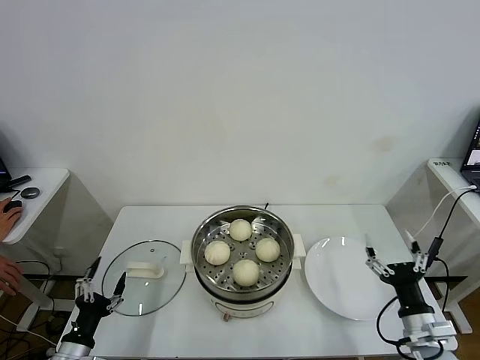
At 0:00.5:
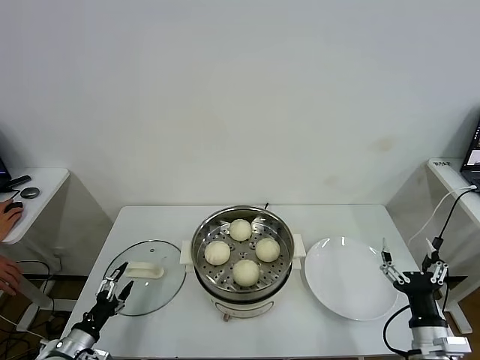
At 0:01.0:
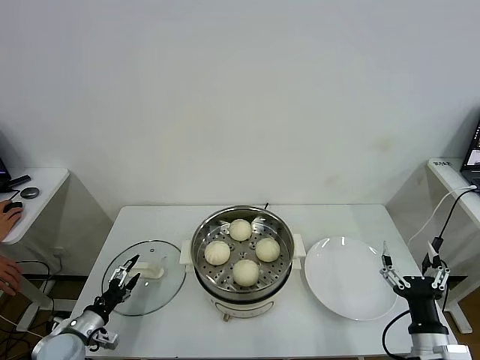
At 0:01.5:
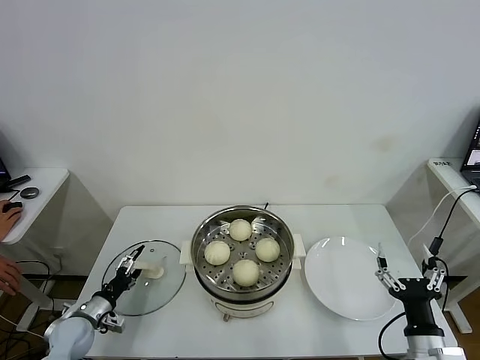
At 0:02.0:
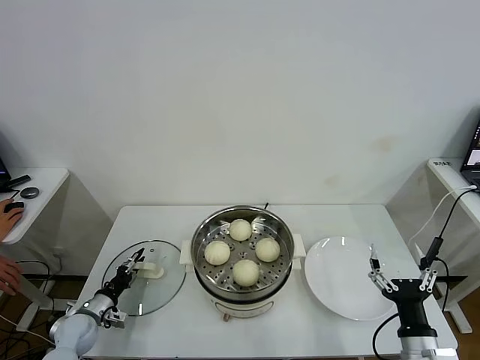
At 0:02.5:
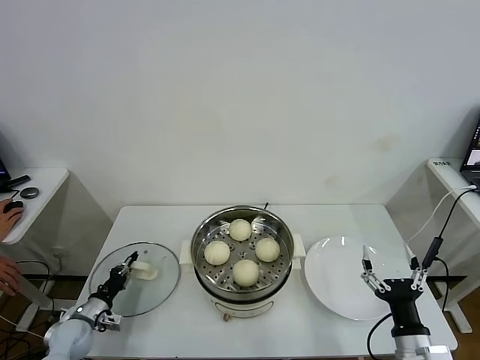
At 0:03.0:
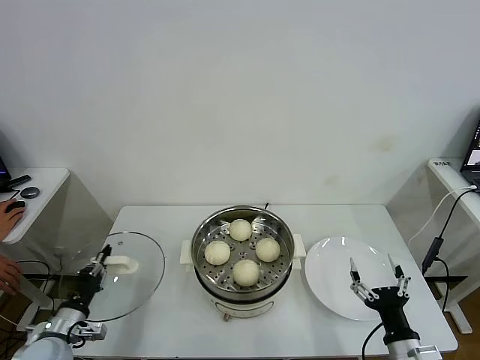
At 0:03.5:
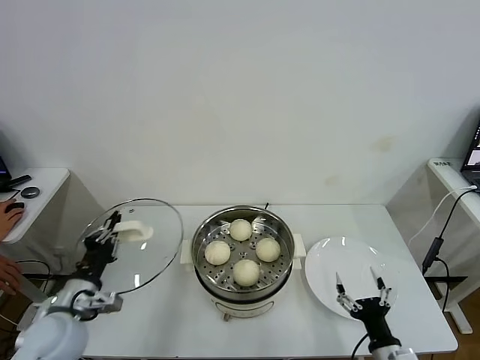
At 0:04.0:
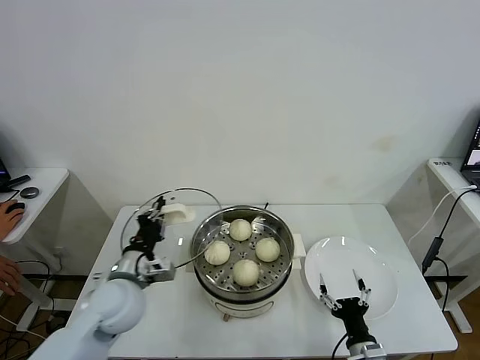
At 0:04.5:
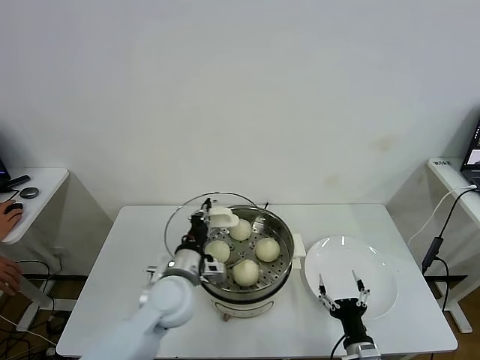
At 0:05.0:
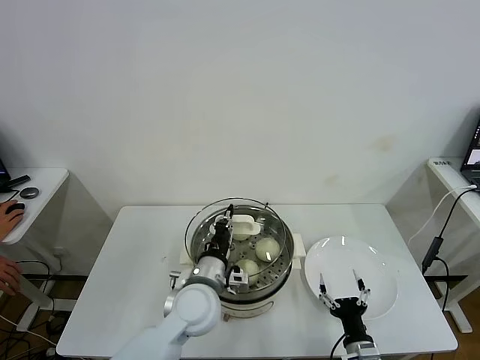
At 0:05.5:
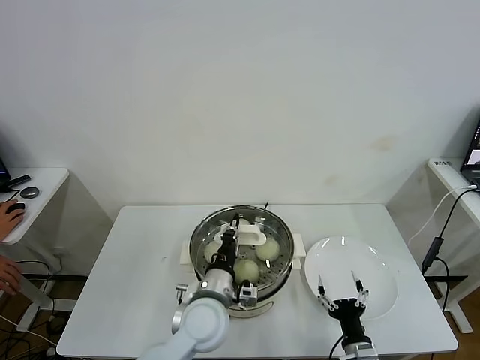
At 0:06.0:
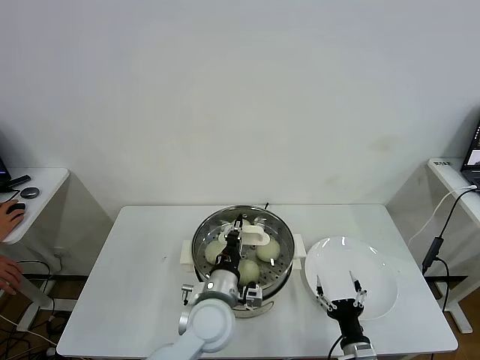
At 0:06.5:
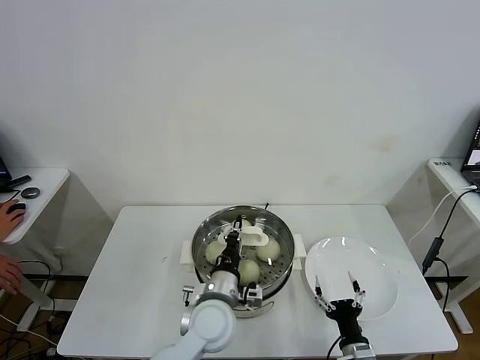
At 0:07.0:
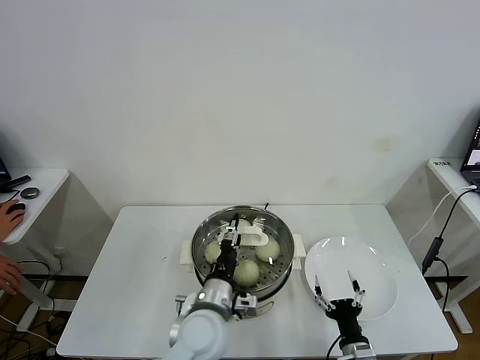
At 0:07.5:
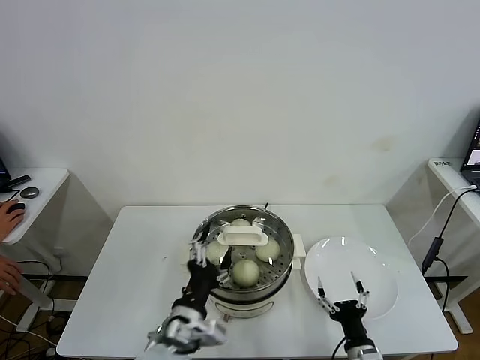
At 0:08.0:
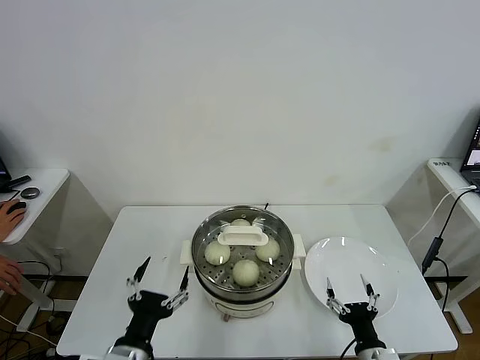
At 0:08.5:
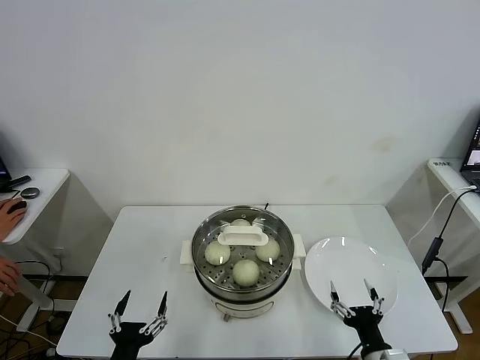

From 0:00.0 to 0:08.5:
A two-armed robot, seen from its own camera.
Task of the whole recording: take steamed baozi put them in steamer.
Step, from 0:00.0 to 0:02.0: Grasp the pot lid with left gripper.
Step, from 0:02.5 to 0:07.0: Place the pot lid on the steamer with left gripper.
From 0:00.0 to 0:02.0: The left gripper goes about 15 cm forward and downward, and closes up; the right gripper shifts by approximately 5 cm.
From 0:02.0 to 0:04.0: The left gripper is displaced upward and to the right by some 30 cm, and closes up. The right gripper moves downward and to the left, approximately 10 cm.
From 0:04.0 to 0:06.5: The left gripper is displaced to the right by about 20 cm.
From 0:06.5 to 0:08.5: The left gripper shifts some 25 cm to the left and backward, and opens, while the right gripper shifts by roughly 5 cm.

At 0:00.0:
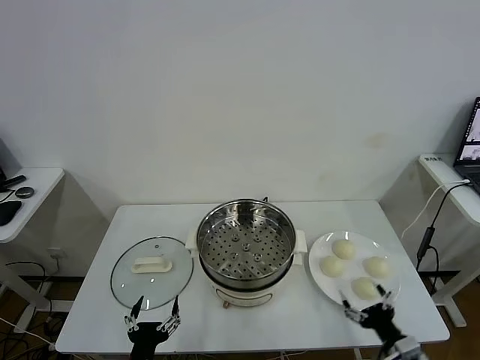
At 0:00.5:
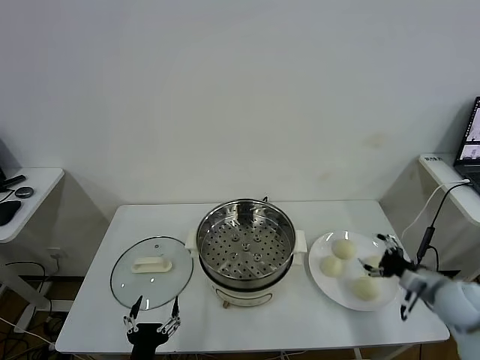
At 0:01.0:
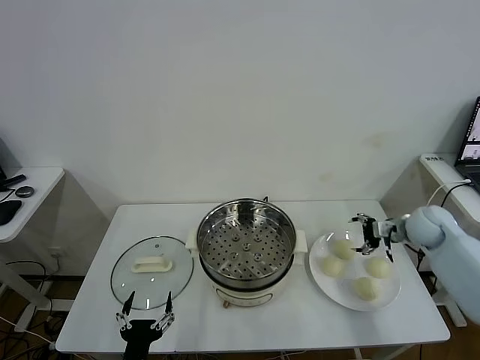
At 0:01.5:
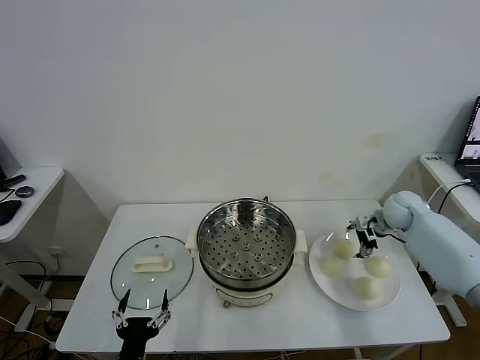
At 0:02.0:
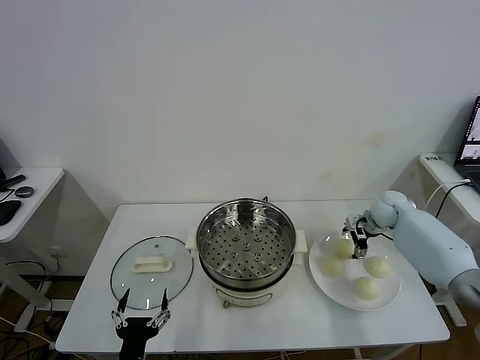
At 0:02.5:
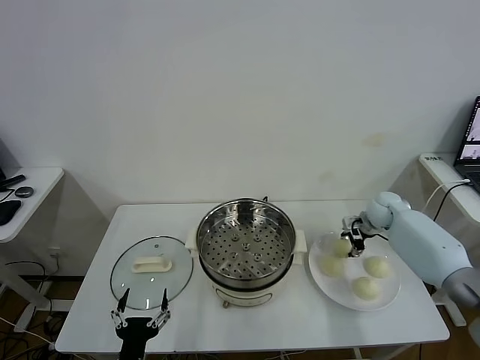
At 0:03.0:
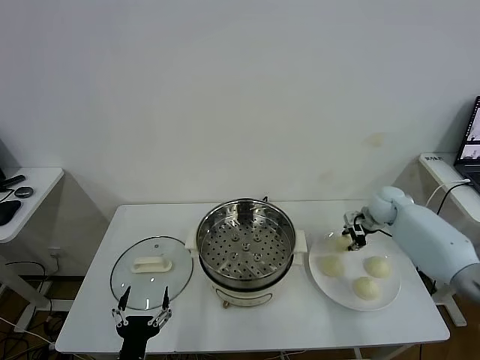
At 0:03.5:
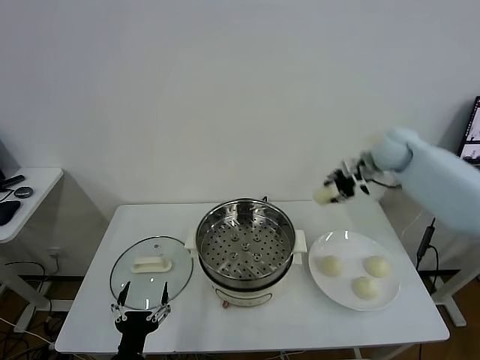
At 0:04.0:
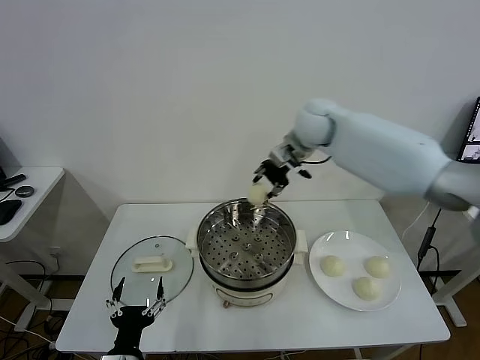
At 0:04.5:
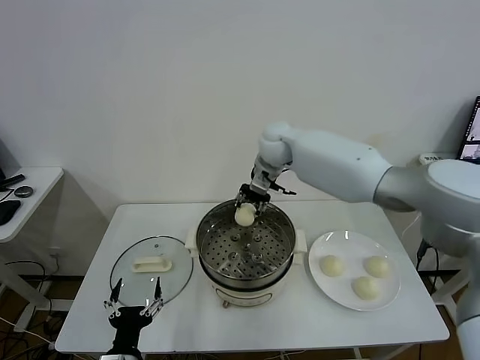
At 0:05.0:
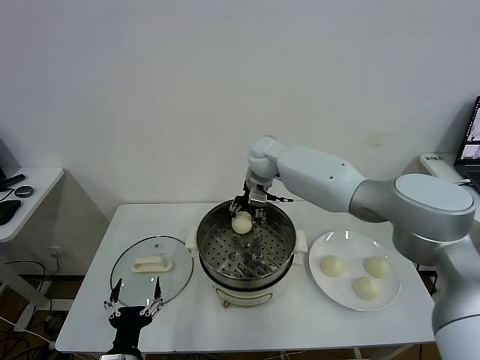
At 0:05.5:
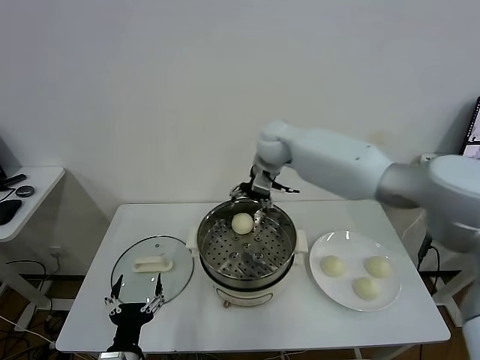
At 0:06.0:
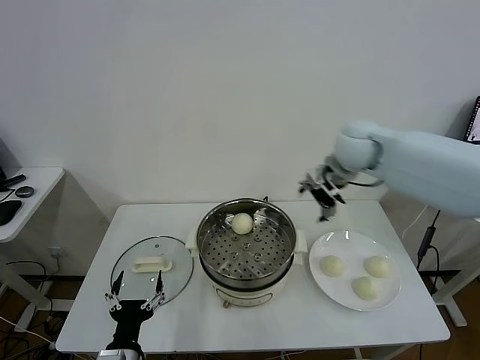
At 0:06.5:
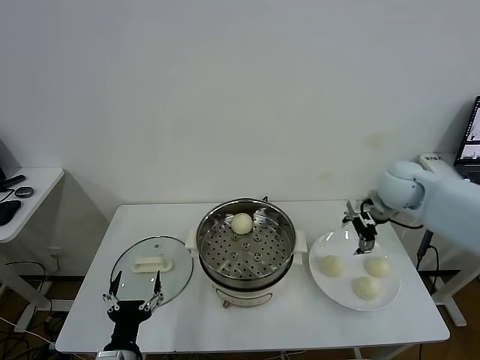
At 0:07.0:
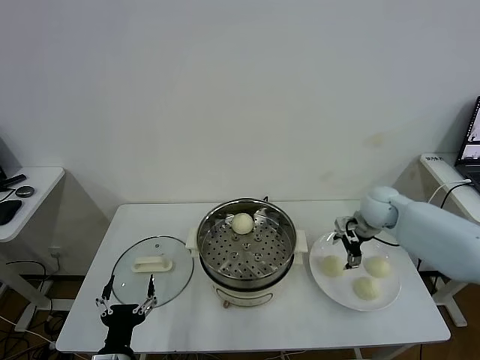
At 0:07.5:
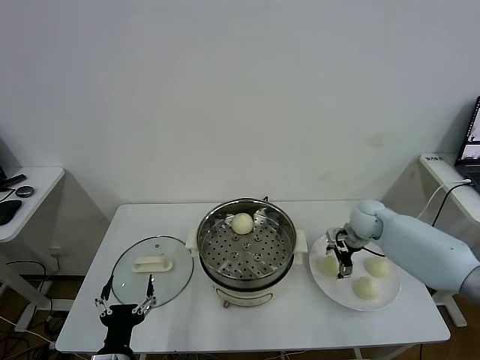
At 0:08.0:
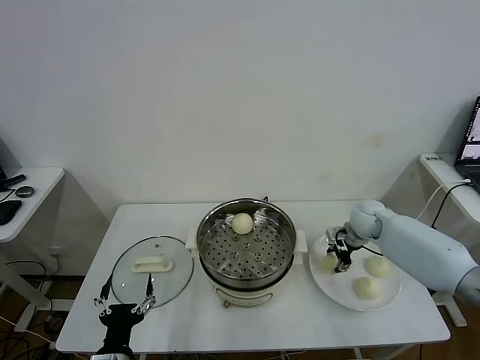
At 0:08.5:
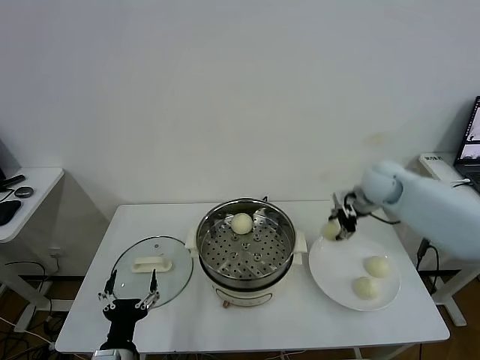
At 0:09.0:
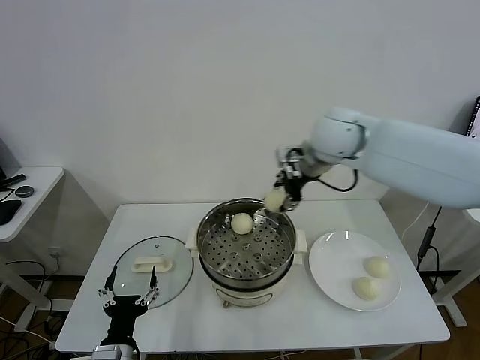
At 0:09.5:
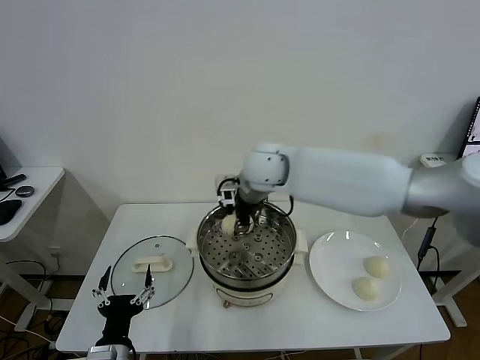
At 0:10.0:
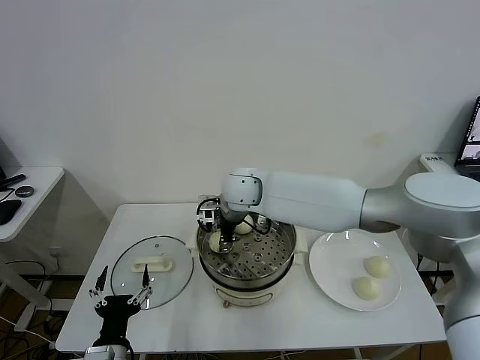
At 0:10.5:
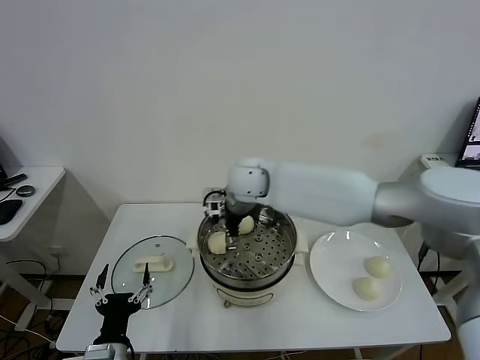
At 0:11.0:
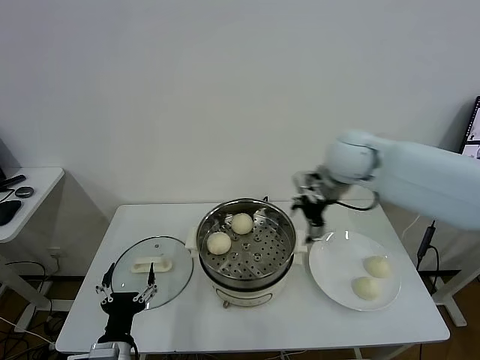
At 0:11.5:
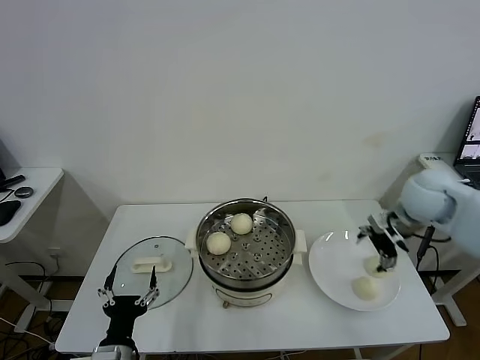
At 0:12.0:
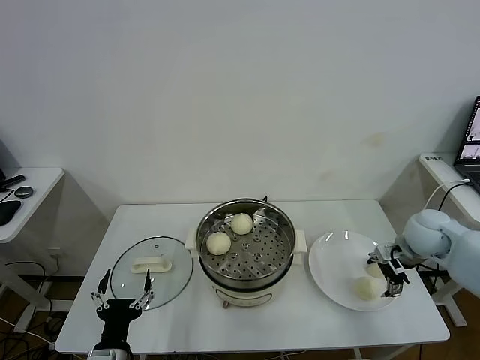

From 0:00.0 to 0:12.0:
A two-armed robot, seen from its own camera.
Task of the whole recording: take steamed baozi put them in steamer.
Step, from 0:00.0 to 0:02.0: Grasp the baozi in the plate with right gripper.
Step, from 0:03.0 to 0:05.5: Place the baozi on the steamer with right gripper.
Step, from 0:06.0 to 0:07.5: Grasp the baozi in the plate with right gripper.
Step, from 0:08.0 to 0:10.0: Place the baozi on the steamer with right gripper.
From 0:02.0 to 0:04.0: The right gripper is displaced to the left and upward by some 35 cm, and closes.
From 0:04.0 to 0:06.0: The right gripper goes roughly 10 cm to the right and backward, and opens up.
From 0:06.0 to 0:08.0: The right gripper travels downward and to the right by some 25 cm, and closes up.
From 0:08.0 to 0:10.0: The right gripper goes approximately 35 cm to the left.
From 0:10.0 to 0:12.0: The right gripper shifts about 40 cm to the right, and opens.

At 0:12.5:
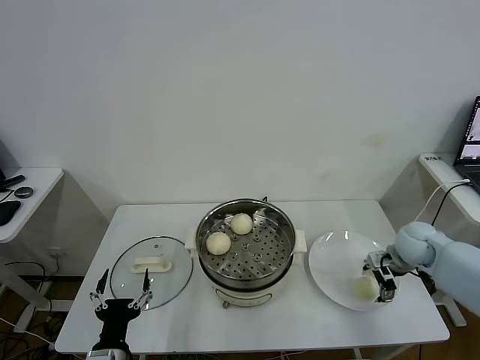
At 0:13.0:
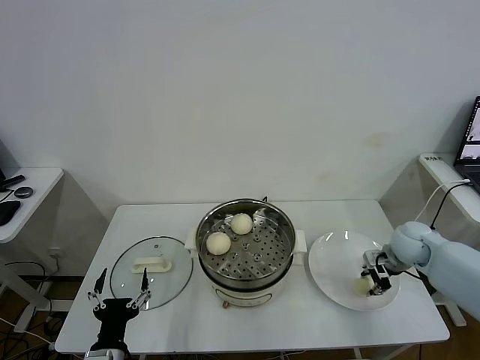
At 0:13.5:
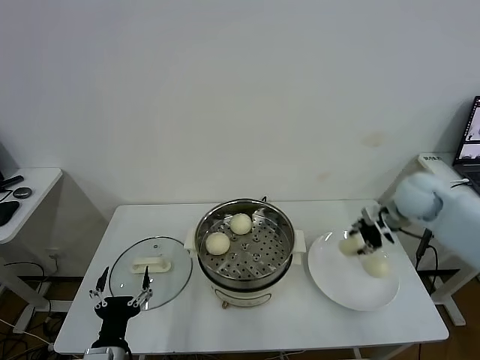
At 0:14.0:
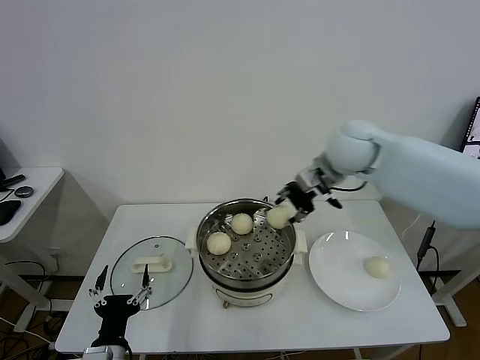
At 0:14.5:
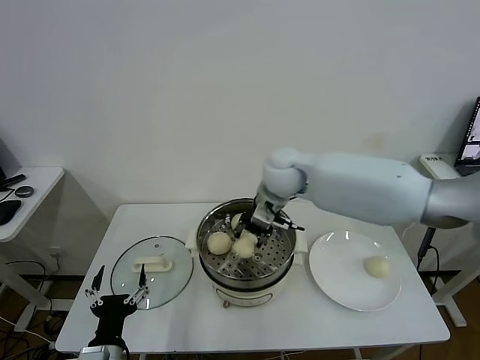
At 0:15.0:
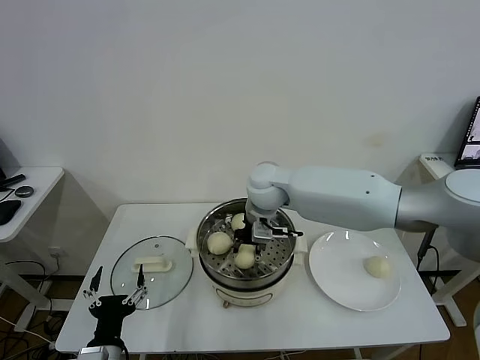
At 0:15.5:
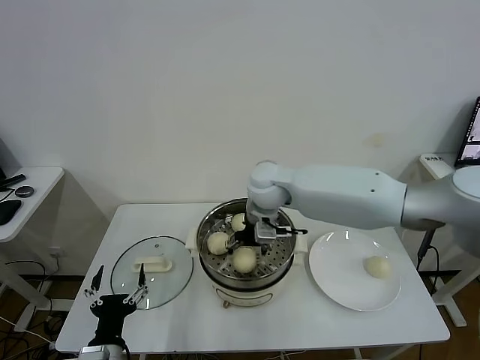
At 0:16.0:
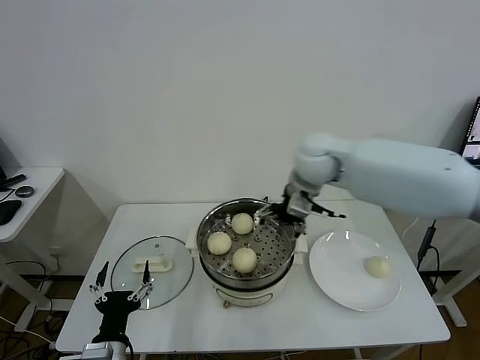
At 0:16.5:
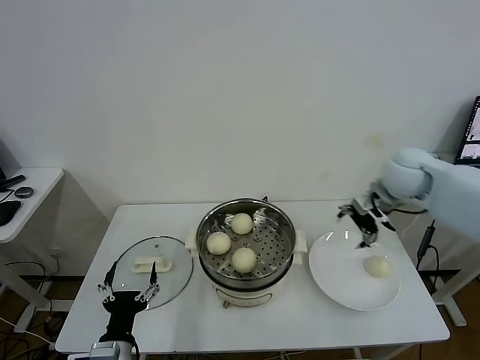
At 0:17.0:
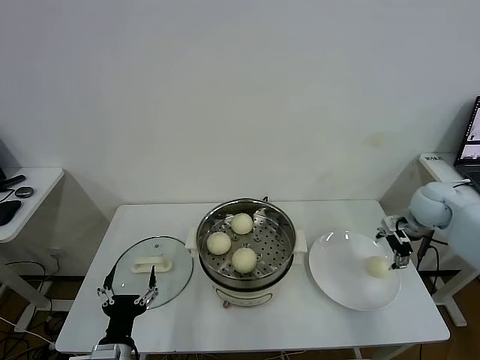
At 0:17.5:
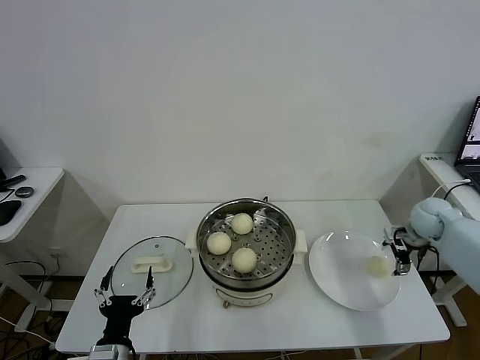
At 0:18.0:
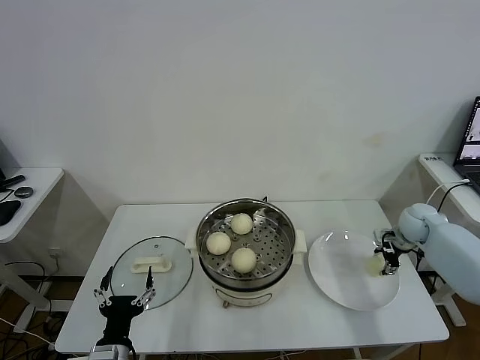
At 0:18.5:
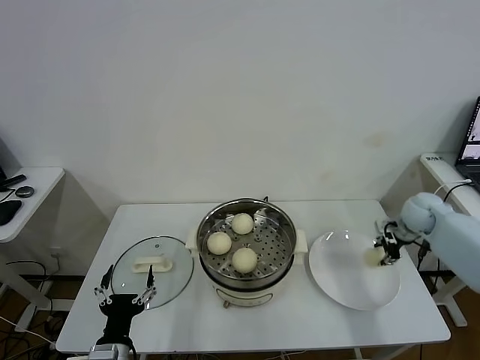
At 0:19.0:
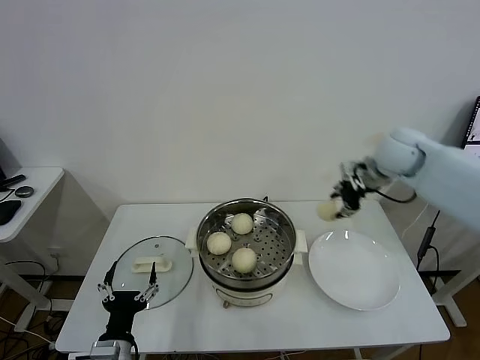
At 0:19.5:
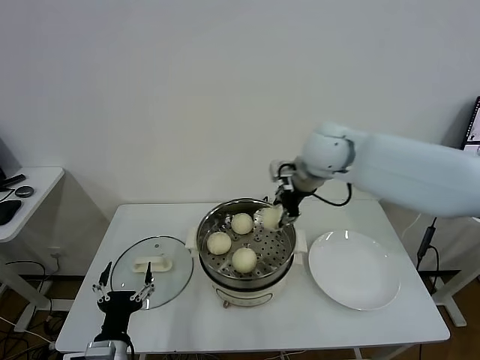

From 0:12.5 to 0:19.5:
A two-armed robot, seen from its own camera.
Task of the whole recording: take steamed baozi put them in steamer.
Step, from 0:13.0 to 0:15.5: Place the baozi on the steamer with right gripper.
Step, from 0:16.0 to 0:18.0: Grasp the baozi in the plate with right gripper.
From 0:12.5 to 0:14.5: The right gripper goes some 35 cm to the left and upward, and closes.
From 0:14.5 to 0:16.0: The right gripper travels to the right by roughly 5 cm, and opens up.
From 0:16.0 to 0:17.5: The right gripper shifts about 35 cm to the right and downward.
From 0:17.5 to 0:19.5: The right gripper moves to the left and upward, roughly 35 cm, and closes.
